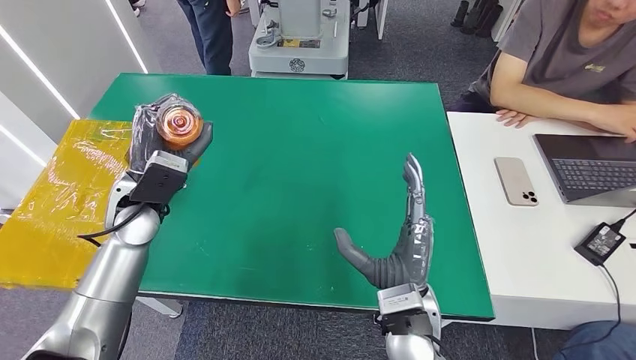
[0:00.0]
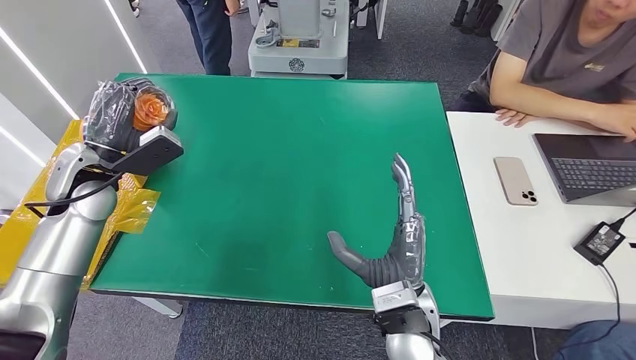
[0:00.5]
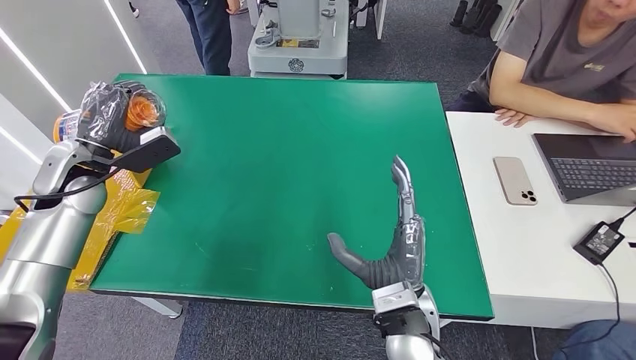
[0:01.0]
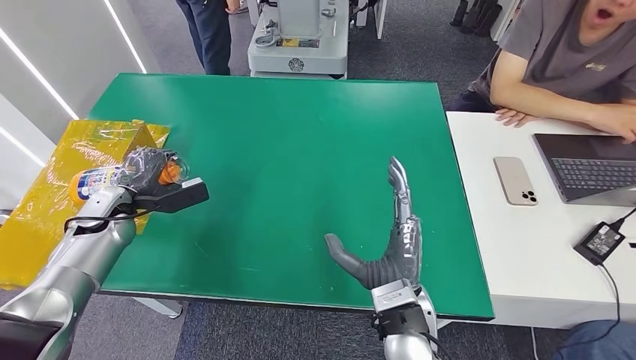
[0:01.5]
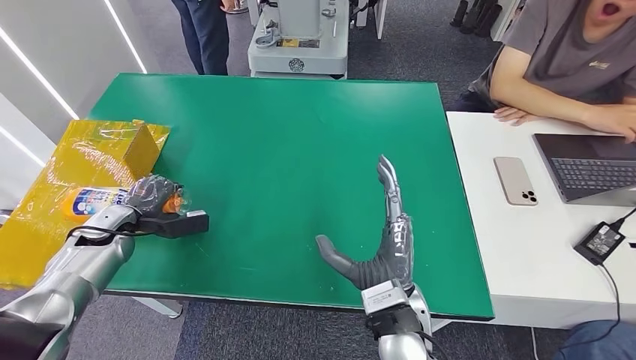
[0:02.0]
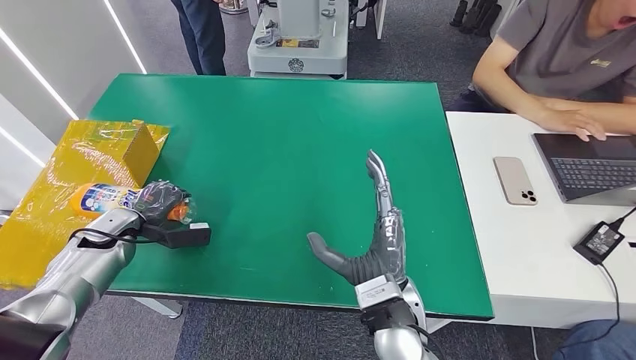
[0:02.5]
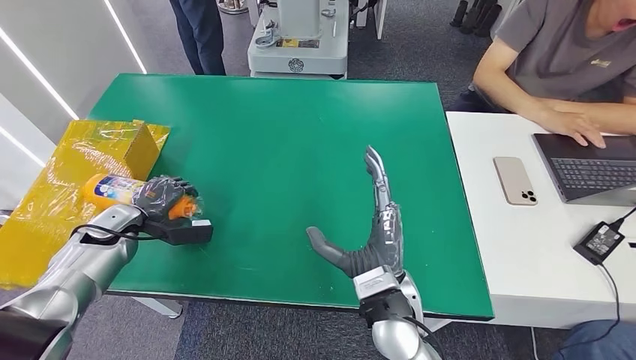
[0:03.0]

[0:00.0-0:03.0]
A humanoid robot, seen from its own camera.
Step, 0:00.0 to 0:02.5: Turn the bottle to the front side.
0:00.0 to 0:01.5: The left hand moves to the left and downward, about 15 cm.

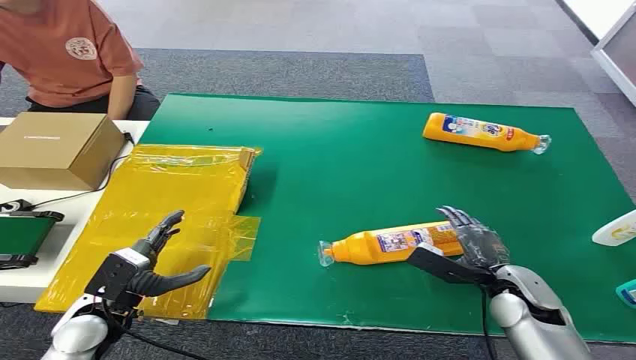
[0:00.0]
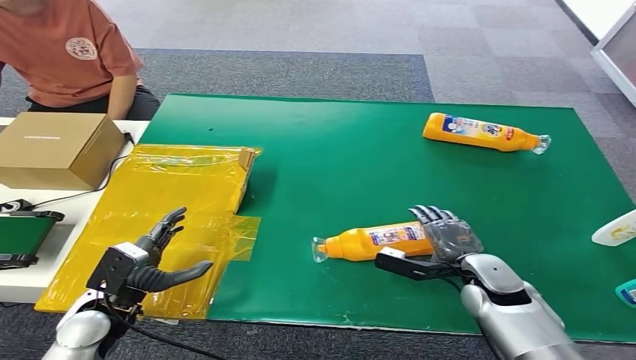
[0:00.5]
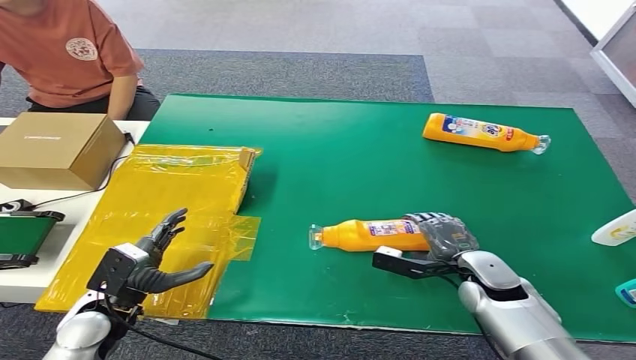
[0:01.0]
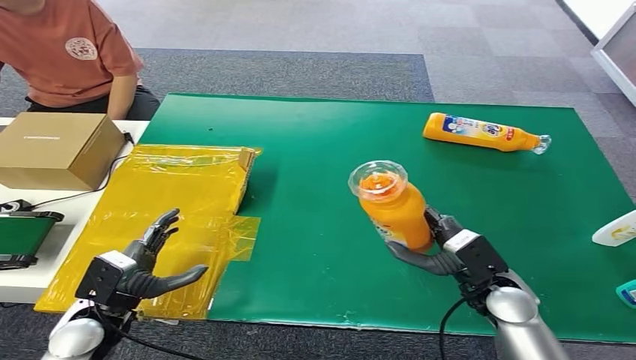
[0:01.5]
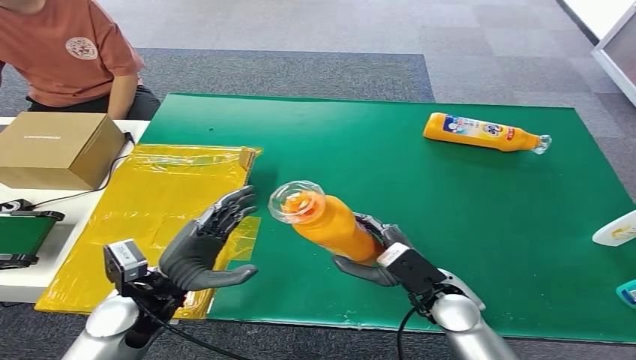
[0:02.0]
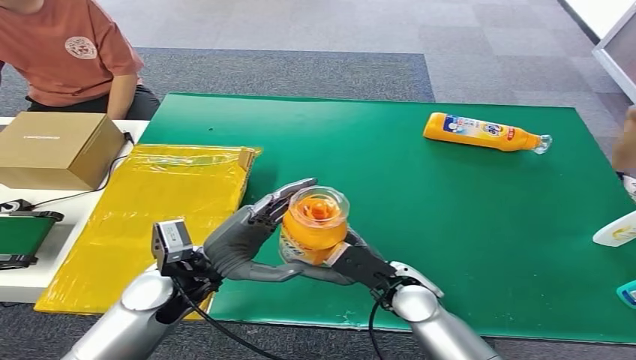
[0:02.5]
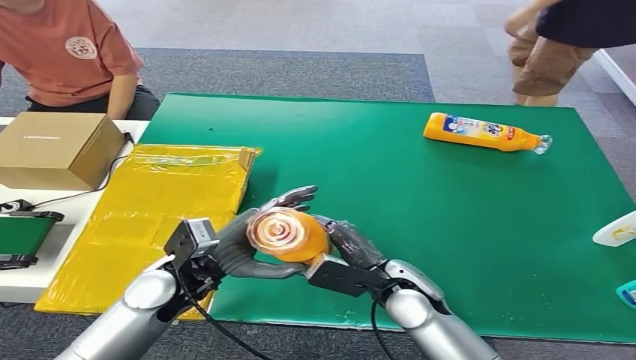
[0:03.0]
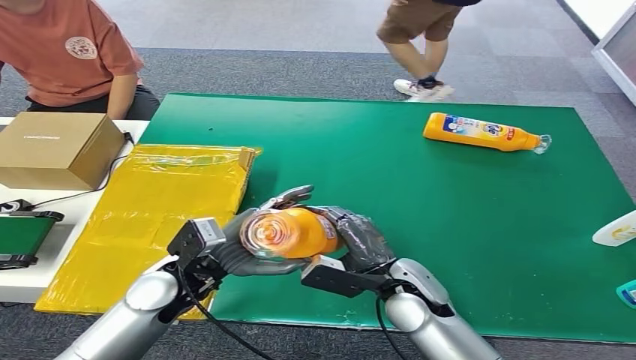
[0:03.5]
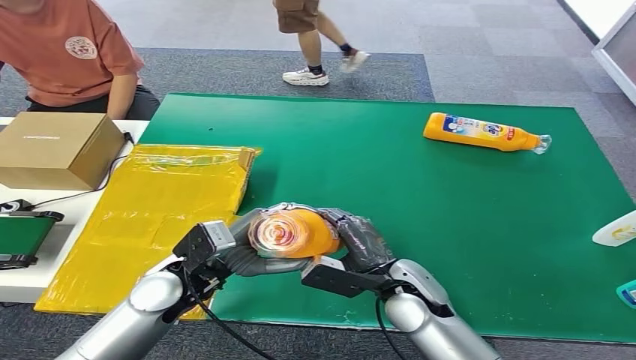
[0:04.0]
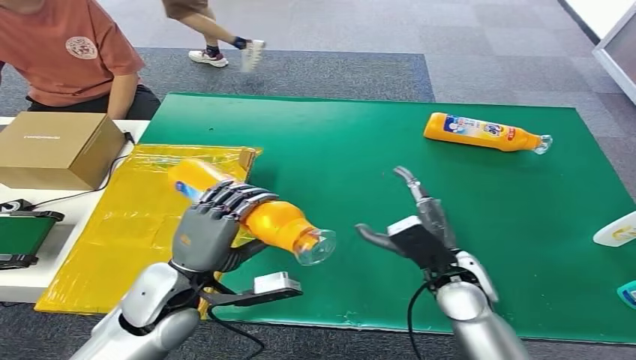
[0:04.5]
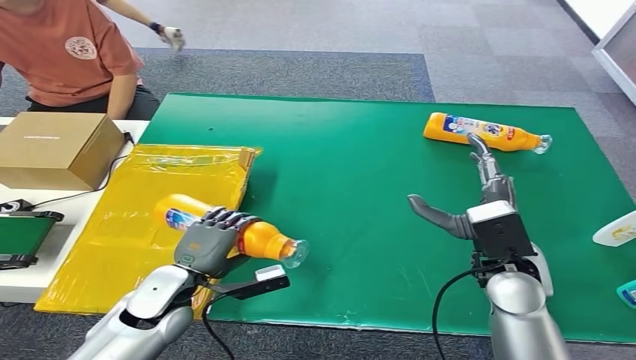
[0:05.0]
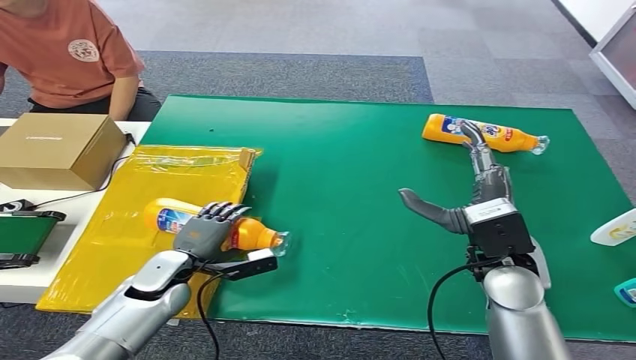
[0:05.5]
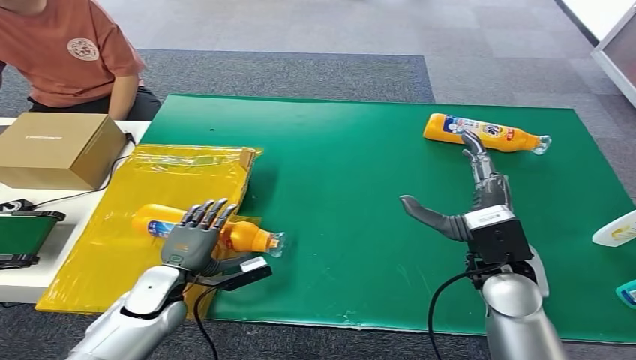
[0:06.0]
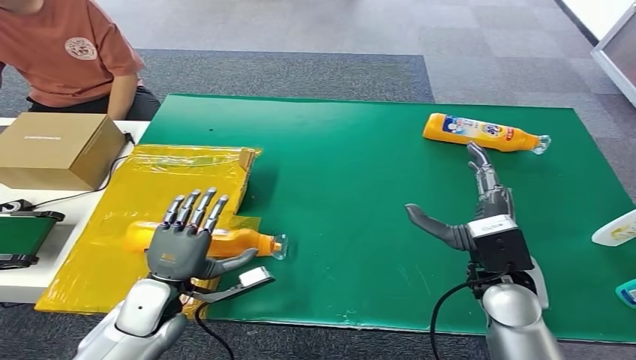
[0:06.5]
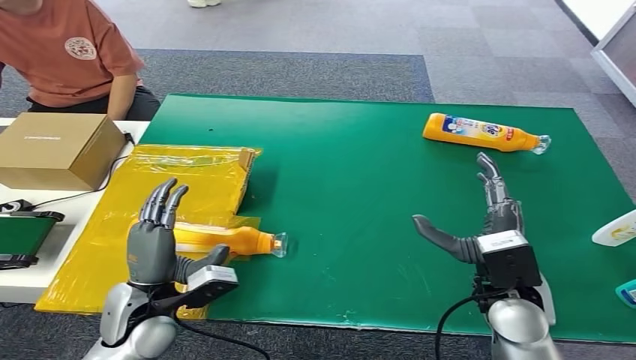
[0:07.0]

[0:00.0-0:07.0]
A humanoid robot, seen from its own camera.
Step, 0:00.0 to 0:01.5: Pick up the bottle from the table.
Step, 0:02.0 to 0:07.0: Turn the bottle to the front side.
0:02.0 to 0:03.5: The right hand heads to the left, covering some 5 cm.
0:05.0 to 0:07.0: The left hand reaches some 5 cm downward, then returns.

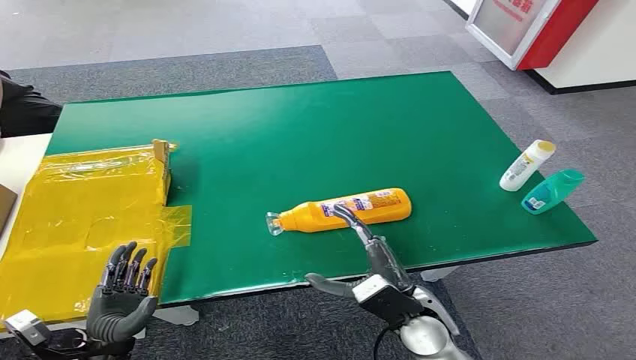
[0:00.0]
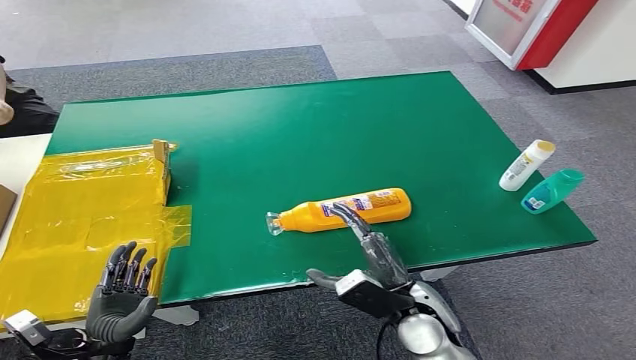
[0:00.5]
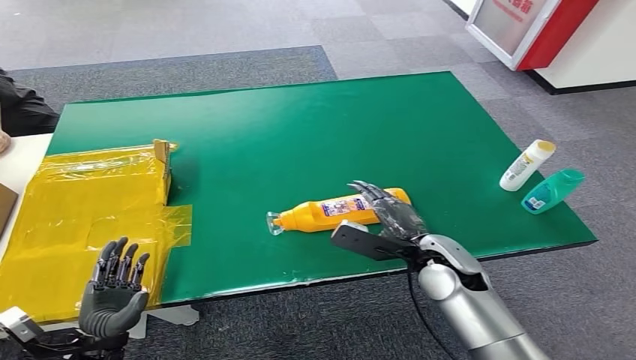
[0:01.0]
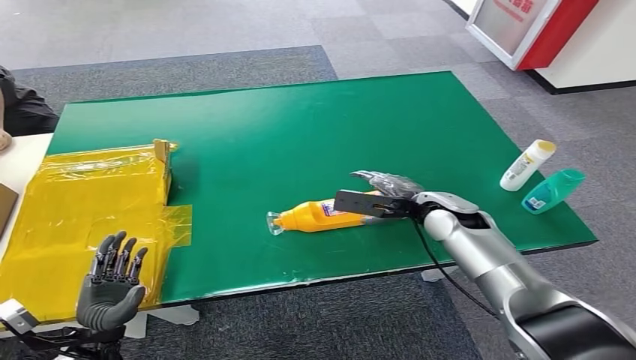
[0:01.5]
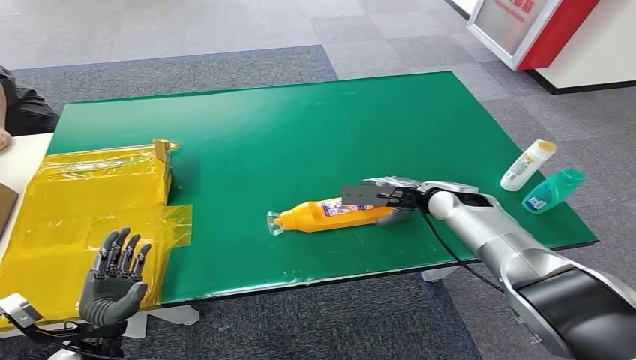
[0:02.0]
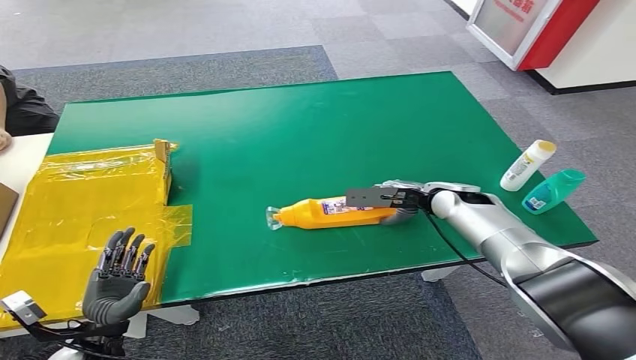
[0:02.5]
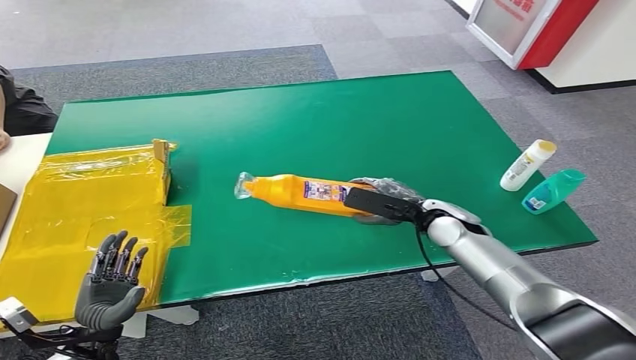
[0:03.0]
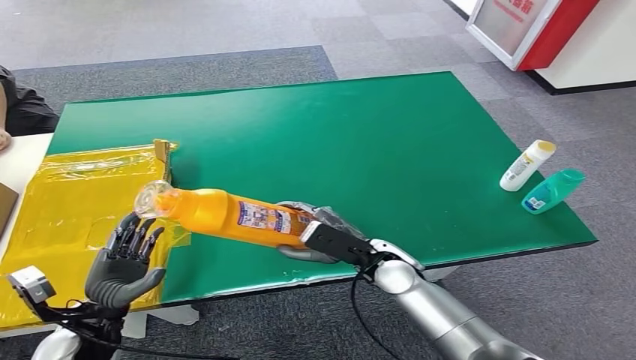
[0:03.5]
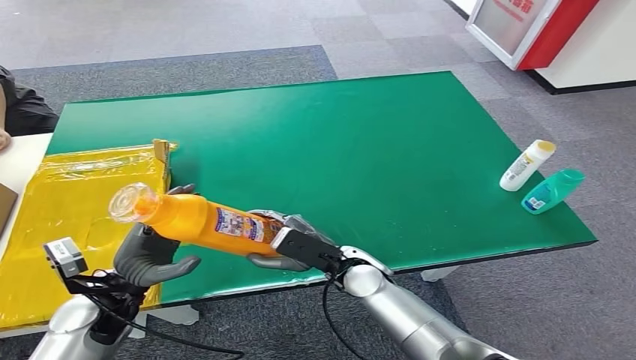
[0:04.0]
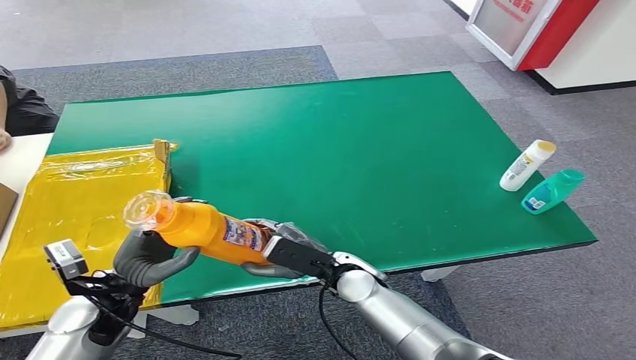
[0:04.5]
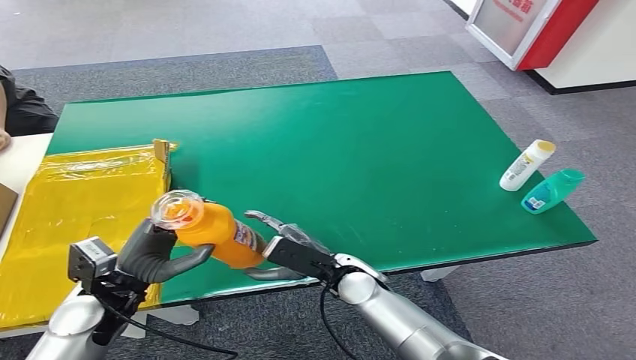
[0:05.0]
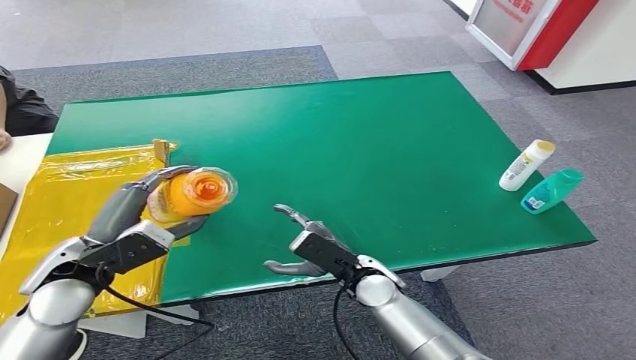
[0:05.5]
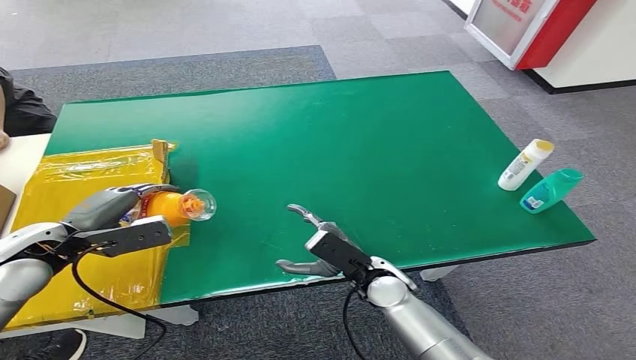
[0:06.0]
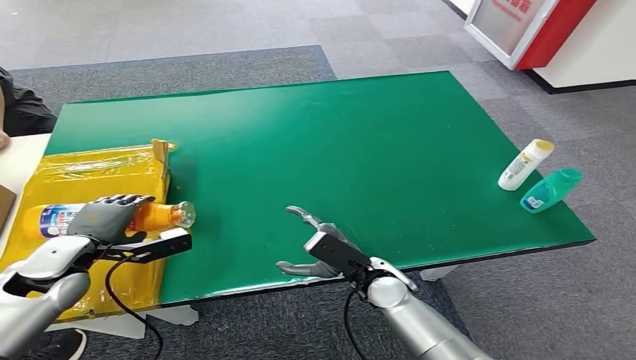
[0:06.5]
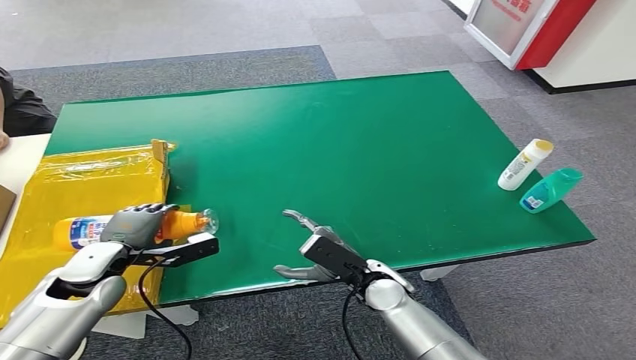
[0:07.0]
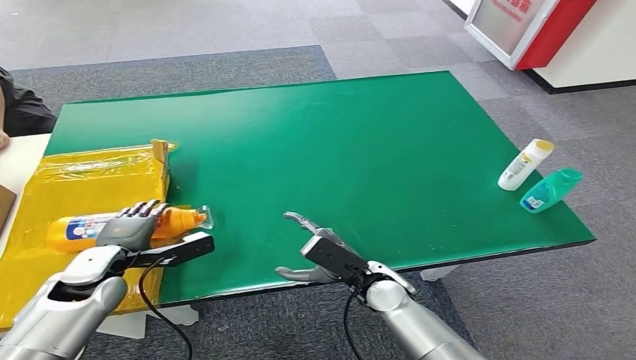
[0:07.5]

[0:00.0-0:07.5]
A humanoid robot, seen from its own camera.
Step, 0:00.0 to 0:03.0: Pick up the bottle from the table.
Step, 0:03.5 to 0:07.5: Turn the bottle to the front side.
0:04.0 to 0:05.5: The left hand shifts some 10 cm upward.
0:05.5 to 0:07.5: The left hand travels downward by about 10 cm.
